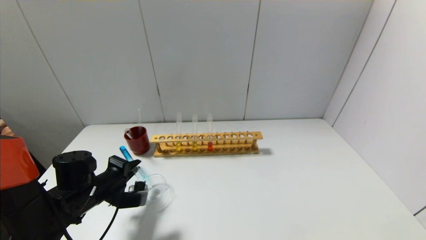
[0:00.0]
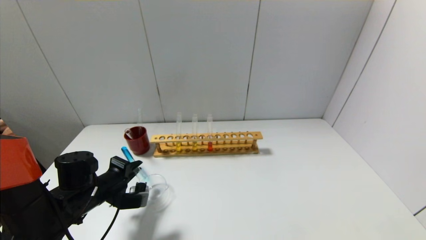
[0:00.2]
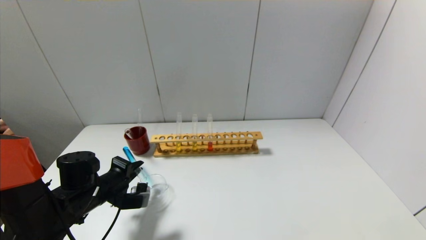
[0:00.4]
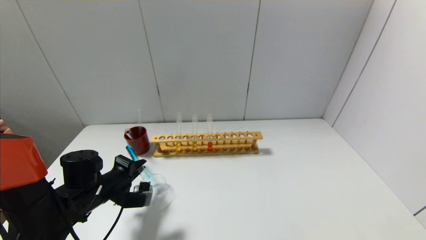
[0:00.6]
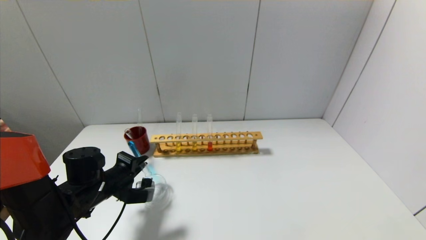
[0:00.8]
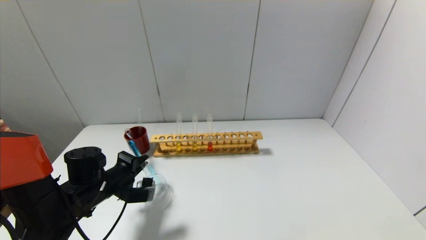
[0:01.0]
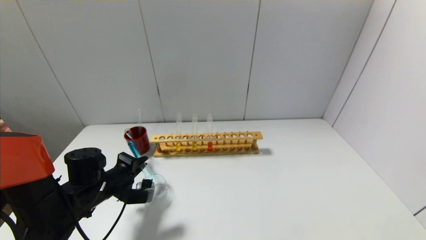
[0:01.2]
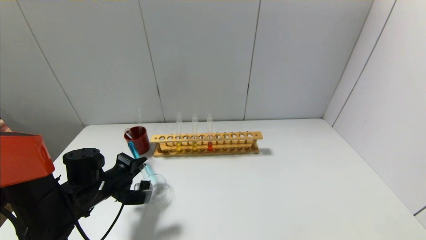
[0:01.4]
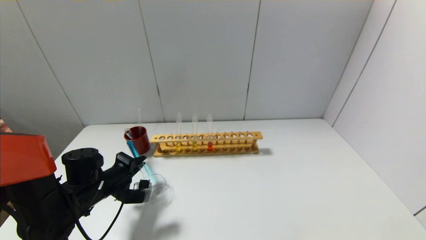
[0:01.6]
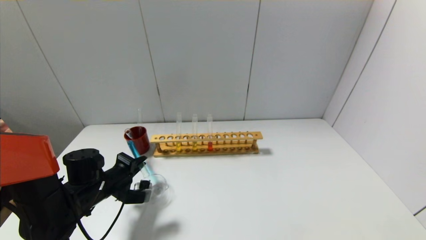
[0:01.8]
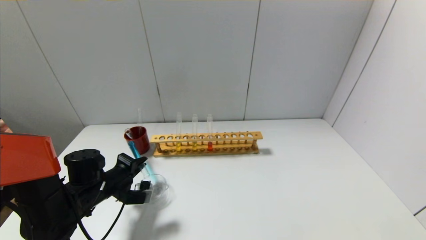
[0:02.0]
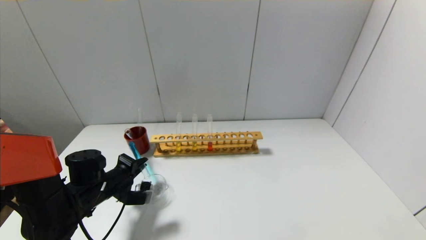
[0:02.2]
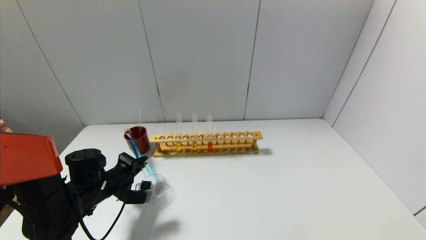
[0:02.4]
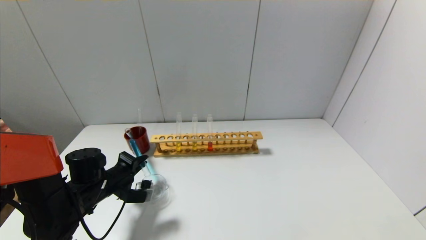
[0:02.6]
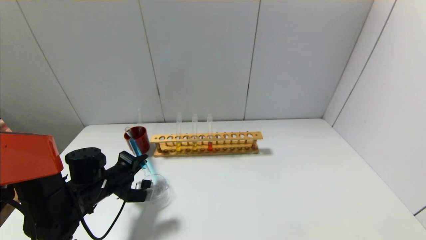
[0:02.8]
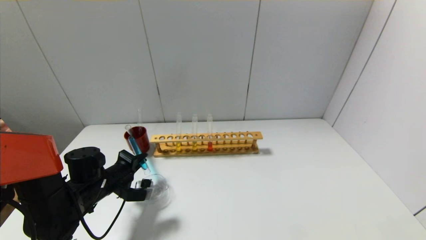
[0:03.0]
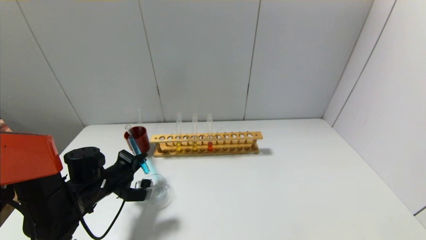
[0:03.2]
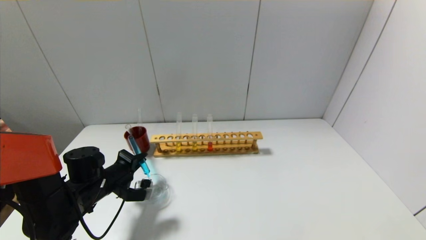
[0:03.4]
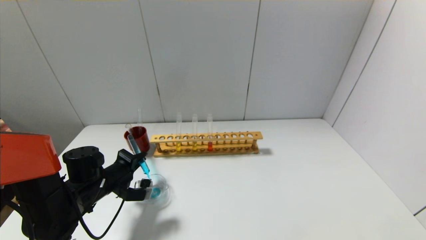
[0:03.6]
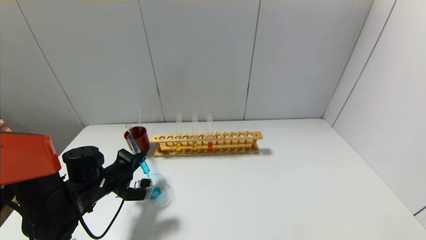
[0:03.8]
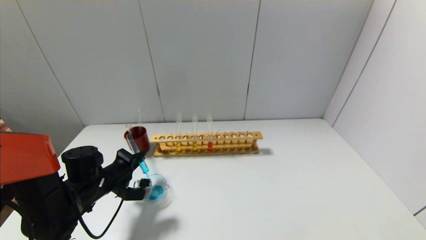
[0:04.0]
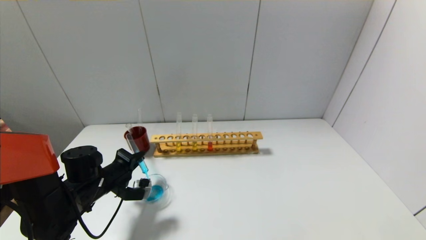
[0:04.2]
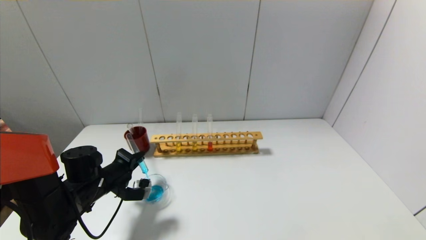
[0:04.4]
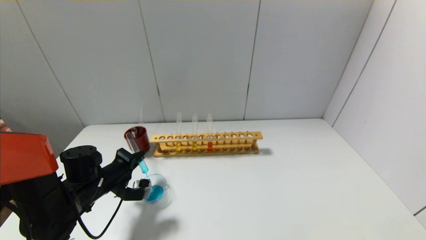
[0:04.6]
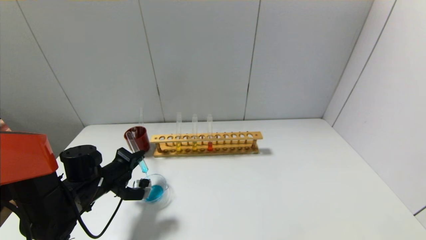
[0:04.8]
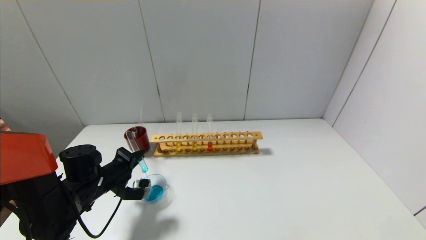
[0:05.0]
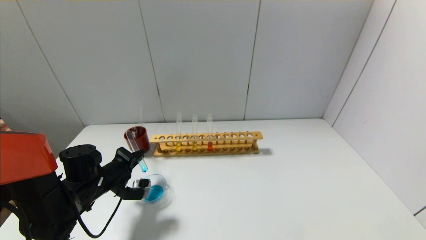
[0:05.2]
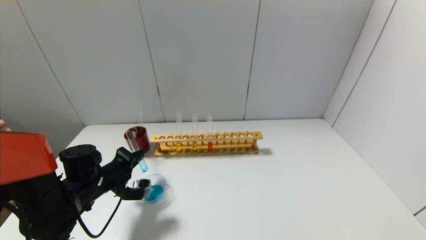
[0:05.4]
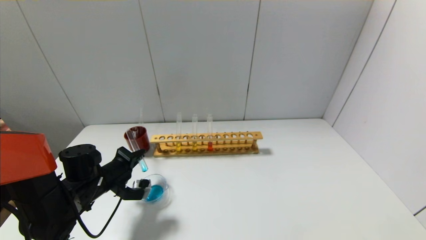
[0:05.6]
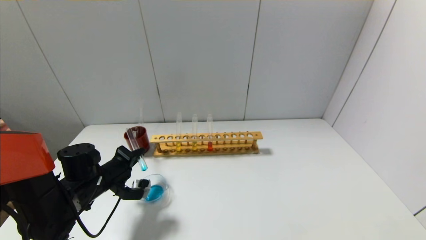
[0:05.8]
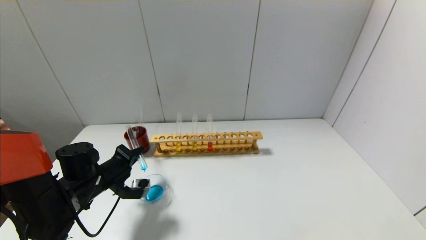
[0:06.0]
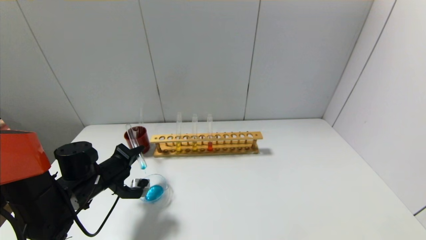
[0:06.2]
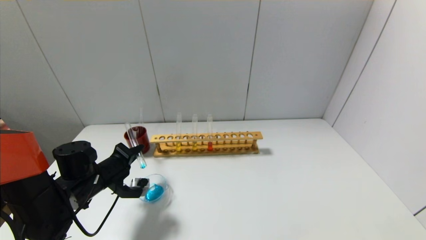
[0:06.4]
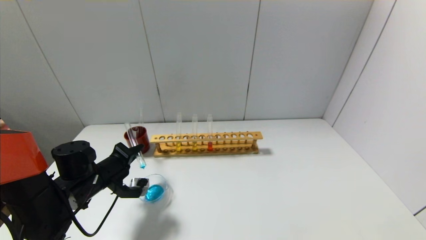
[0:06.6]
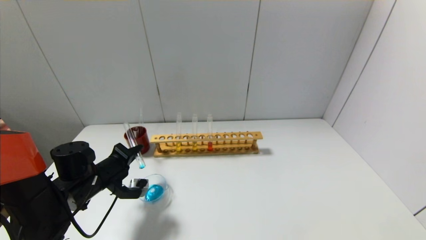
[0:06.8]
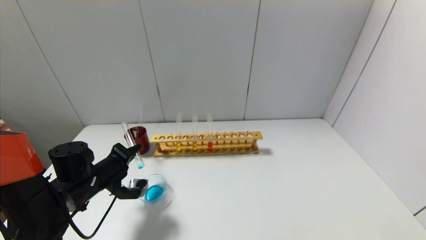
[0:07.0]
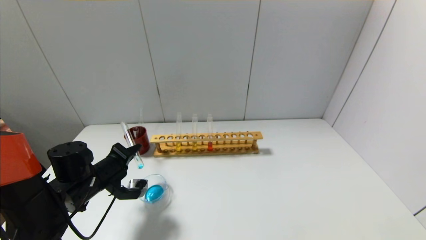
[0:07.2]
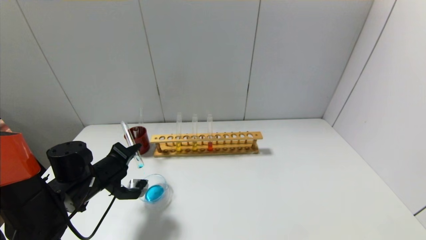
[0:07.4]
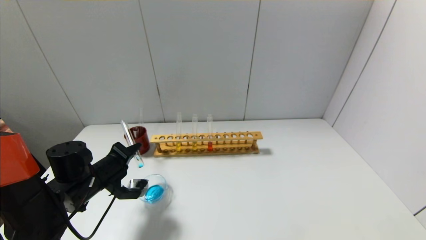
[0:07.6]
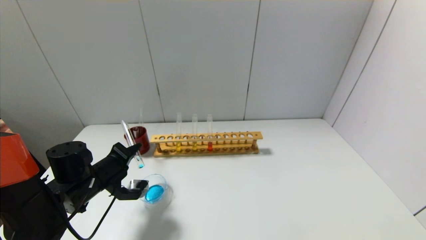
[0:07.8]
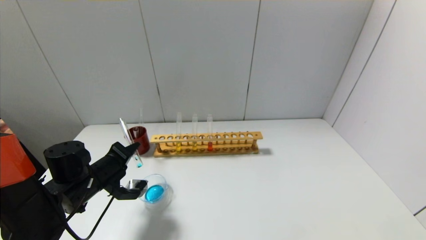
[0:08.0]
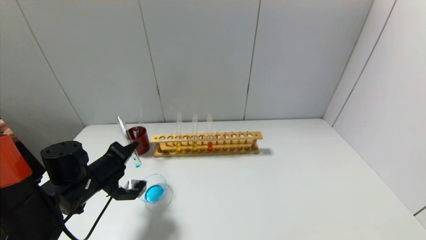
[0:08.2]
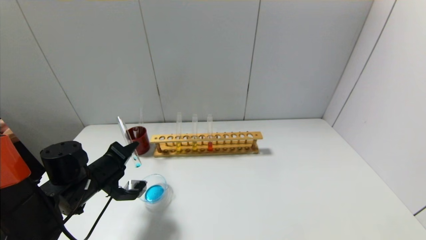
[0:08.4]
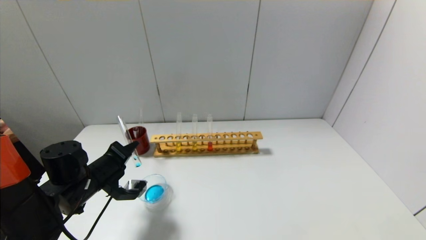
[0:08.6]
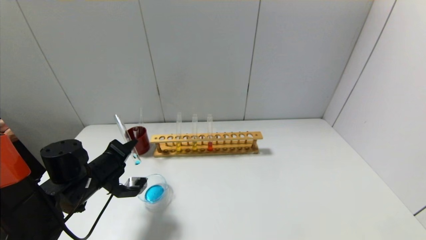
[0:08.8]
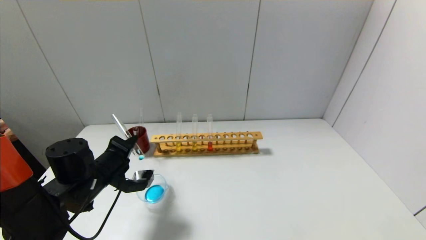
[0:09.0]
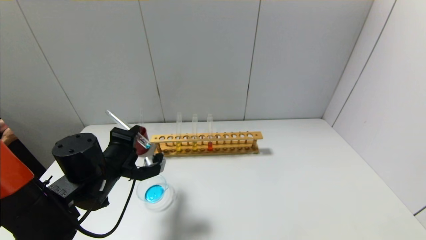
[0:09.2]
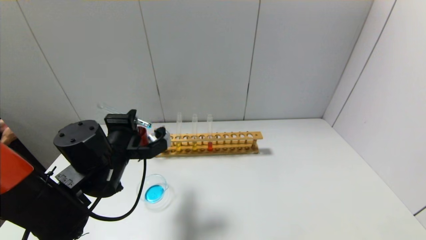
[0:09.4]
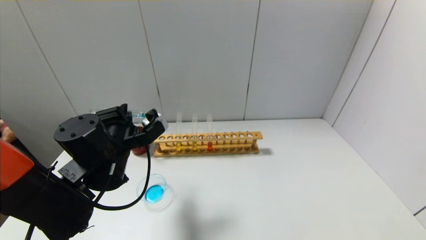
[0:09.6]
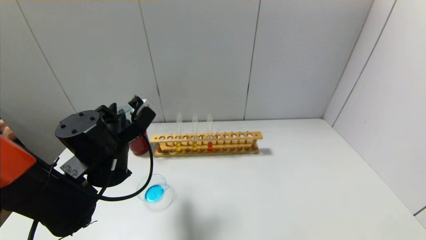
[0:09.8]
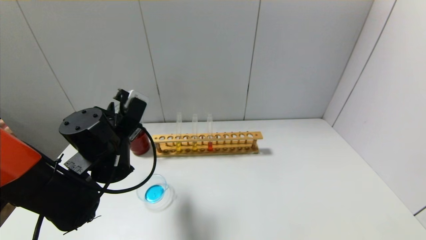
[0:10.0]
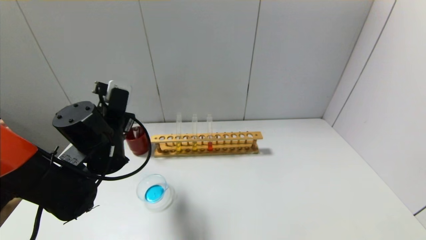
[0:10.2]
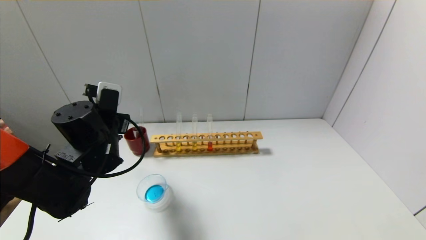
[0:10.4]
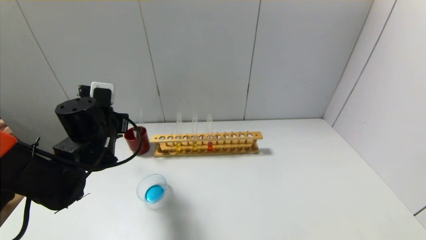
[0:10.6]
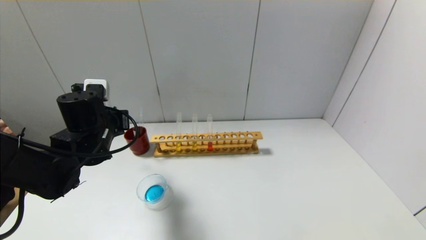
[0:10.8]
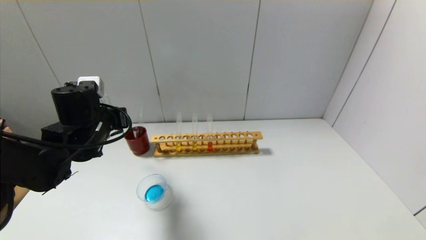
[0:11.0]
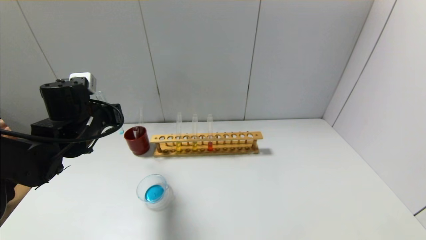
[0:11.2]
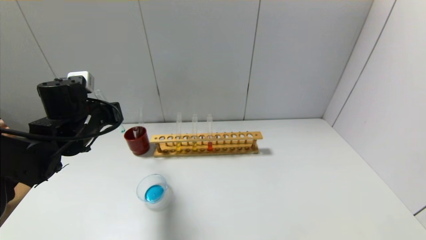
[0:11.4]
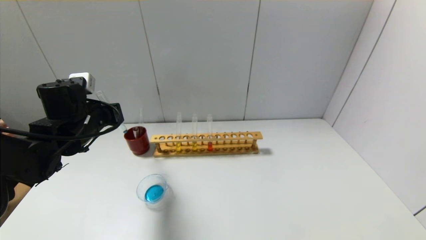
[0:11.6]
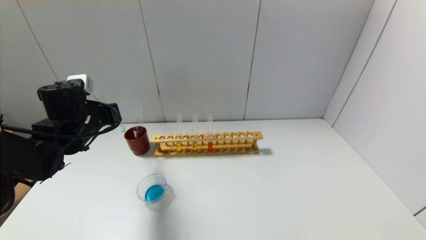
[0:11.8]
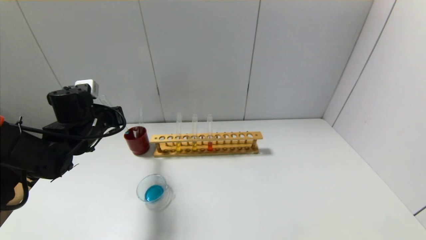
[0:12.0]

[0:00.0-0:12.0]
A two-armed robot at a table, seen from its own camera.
Step, 0.0 to 9.2 s: Pour the blue reagent into the graduated cylinder with the left gripper.
0.0 to 1.6 s: The grippers stay close to where they were, moving slightly.
1.6 to 3.0 s: Both grippers stay put.
3.0 to 4.4 s: Neither gripper changes place.
4.4 to 9.0 s: The grippers move only a little.
9.0 to 10.4 s: The left gripper heads upward, covering approximately 5 cm.
10.4 to 12.0 s: The left gripper shifts some 5 cm to the left.

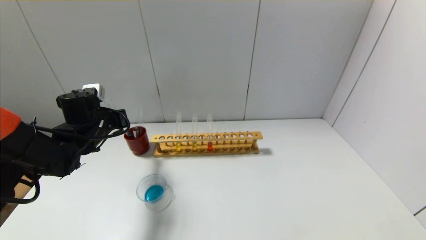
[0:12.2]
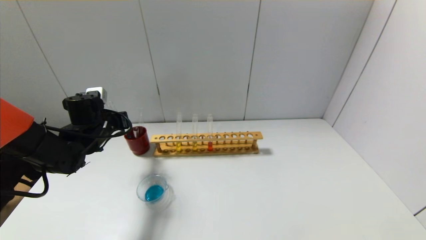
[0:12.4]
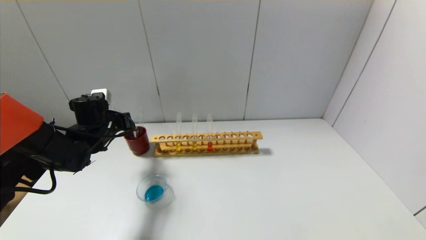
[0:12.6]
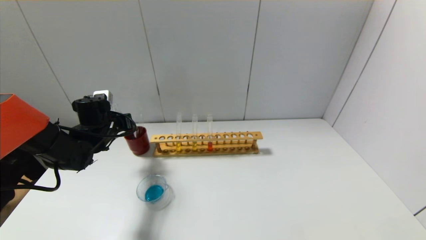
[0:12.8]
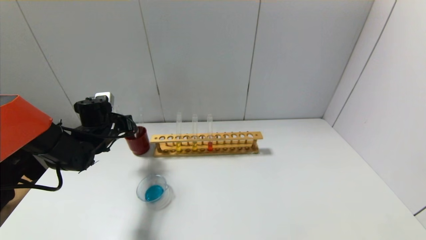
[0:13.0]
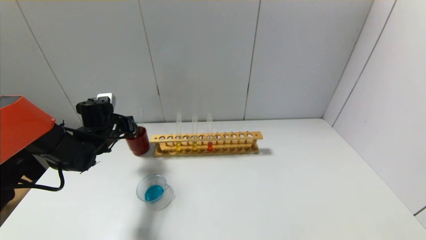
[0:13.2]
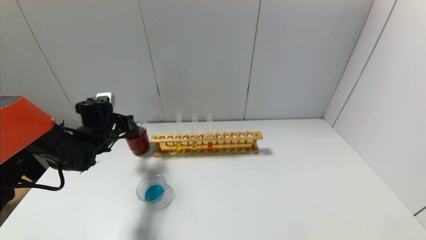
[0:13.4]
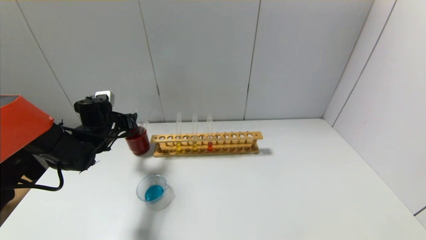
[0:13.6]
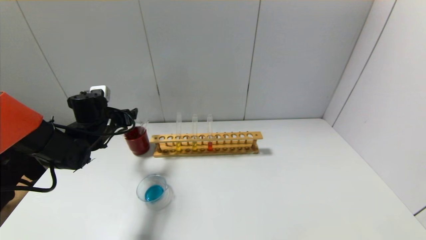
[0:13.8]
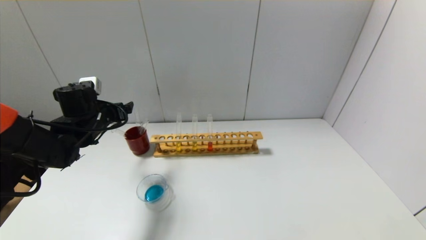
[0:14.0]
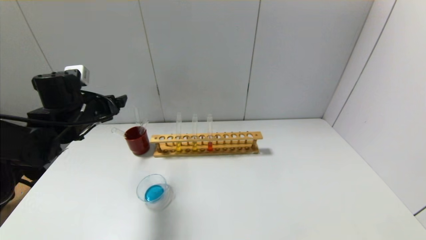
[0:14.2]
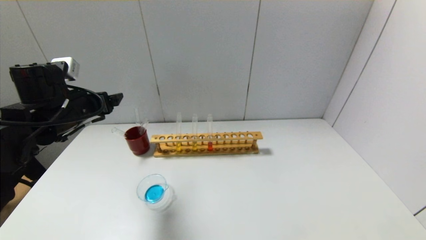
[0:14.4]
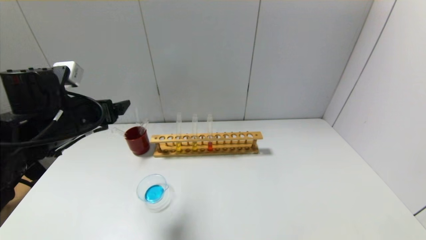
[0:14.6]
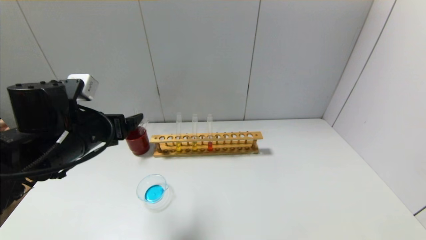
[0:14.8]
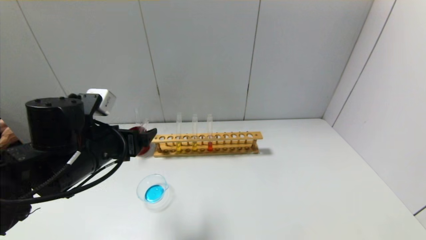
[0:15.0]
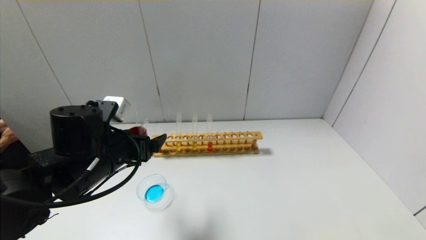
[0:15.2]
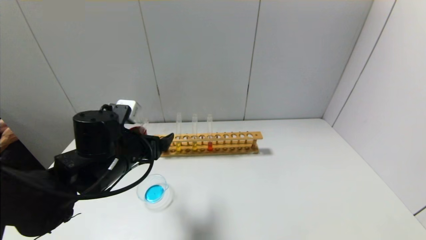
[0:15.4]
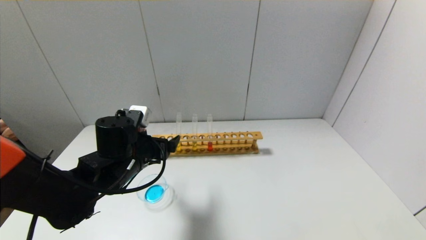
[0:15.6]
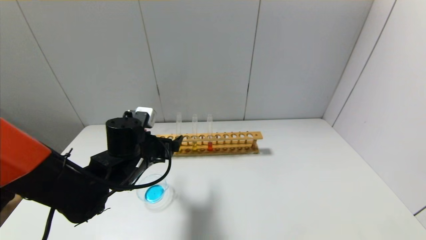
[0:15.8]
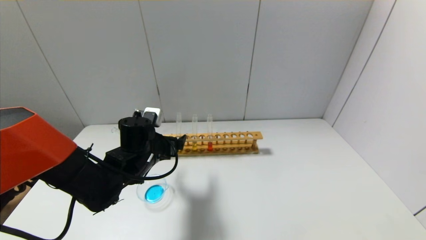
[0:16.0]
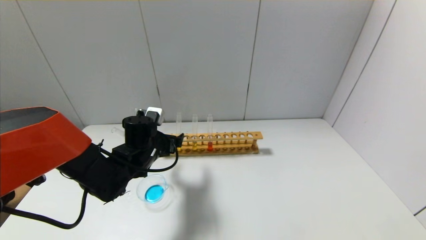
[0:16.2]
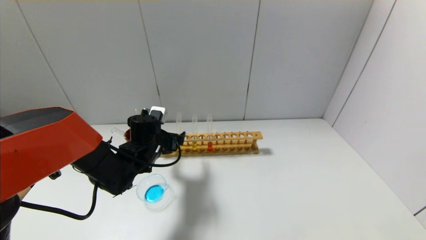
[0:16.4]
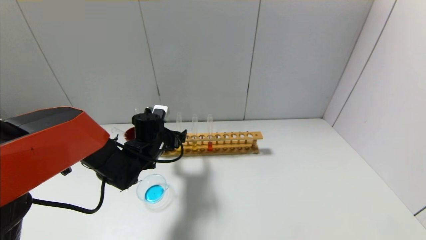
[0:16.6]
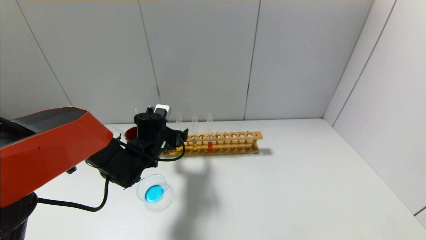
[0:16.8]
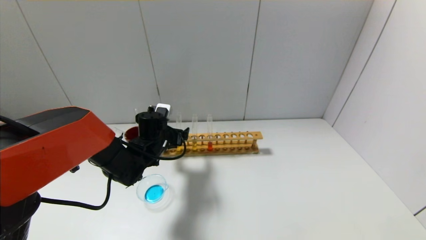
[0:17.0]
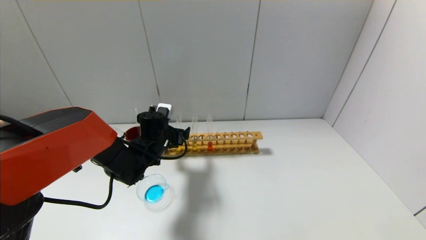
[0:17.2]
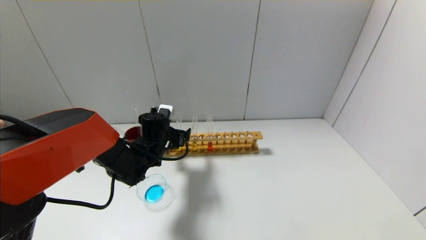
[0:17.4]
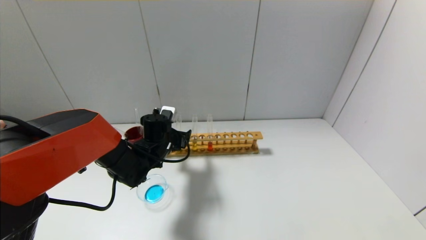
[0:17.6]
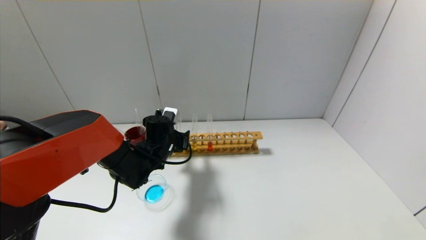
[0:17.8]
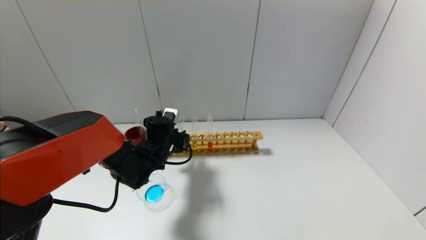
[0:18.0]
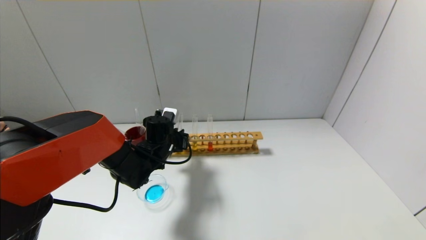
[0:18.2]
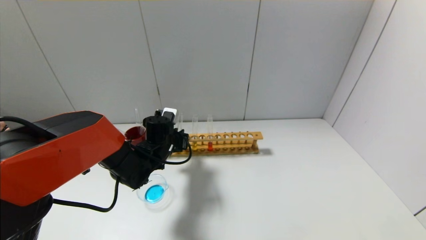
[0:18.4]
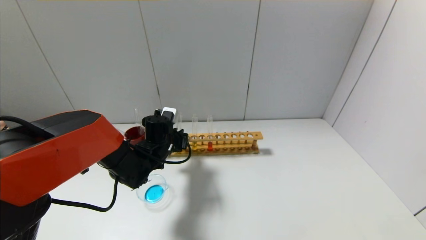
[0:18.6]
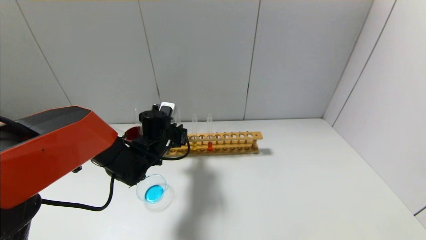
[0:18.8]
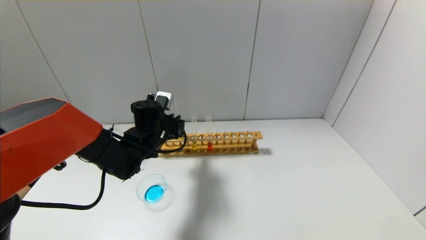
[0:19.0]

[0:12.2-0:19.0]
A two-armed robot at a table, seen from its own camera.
Step, 13.6 to 18.2 s: Grasp the yellow reagent with the left gripper.
12.2 to 13.6 s: The left gripper opens up.
13.6 to 15.0 s: The left gripper travels backward, to the right and upward by roughly 20 cm.
15.0 to 16.2 s: The left gripper is displaced forward and downward by roughly 15 cm.
16.2 to 17.6 s: There are only small adjustments of the grippers.
17.6 to 19.0 s: The left gripper moves upward, approximately 5 cm, and closes up.
